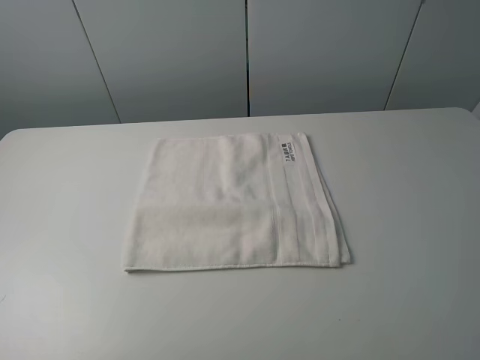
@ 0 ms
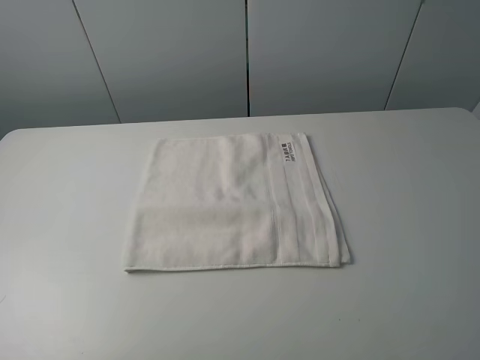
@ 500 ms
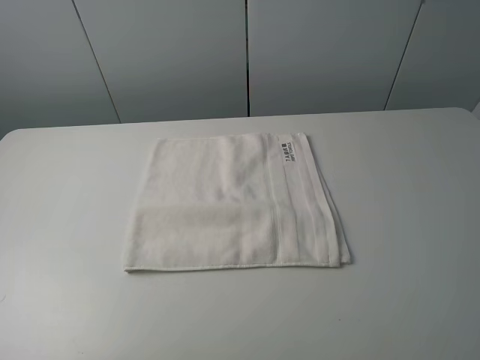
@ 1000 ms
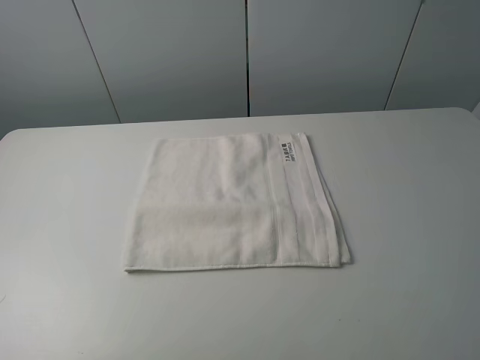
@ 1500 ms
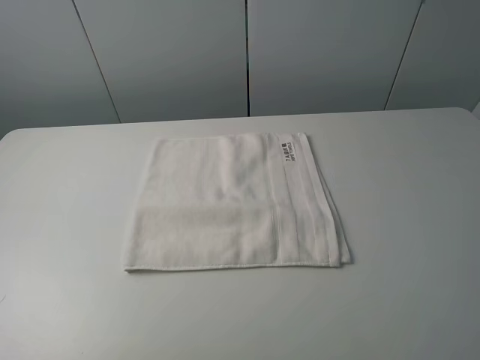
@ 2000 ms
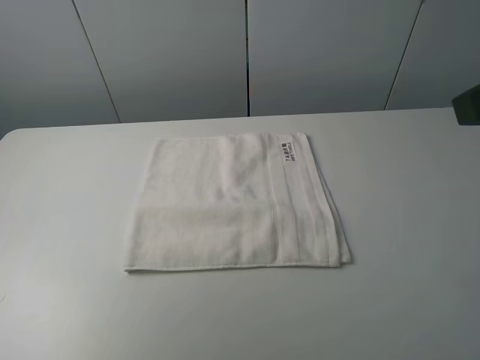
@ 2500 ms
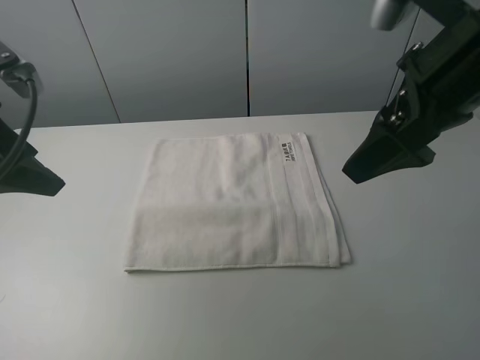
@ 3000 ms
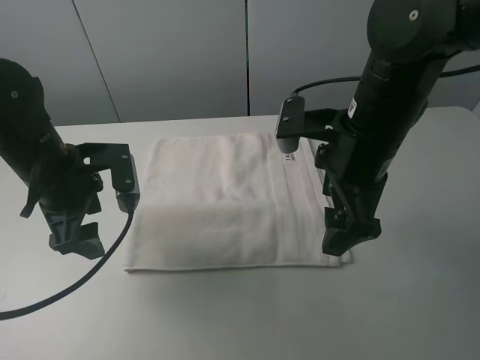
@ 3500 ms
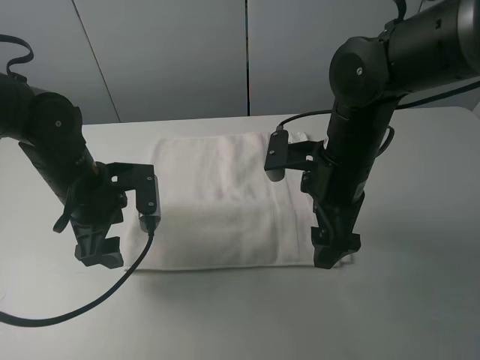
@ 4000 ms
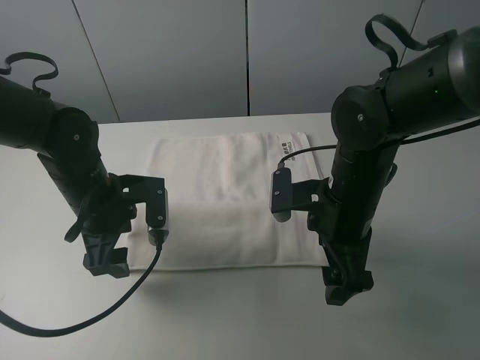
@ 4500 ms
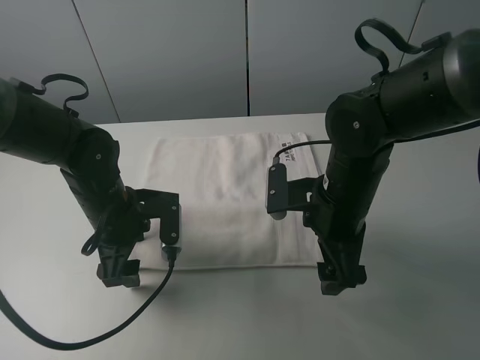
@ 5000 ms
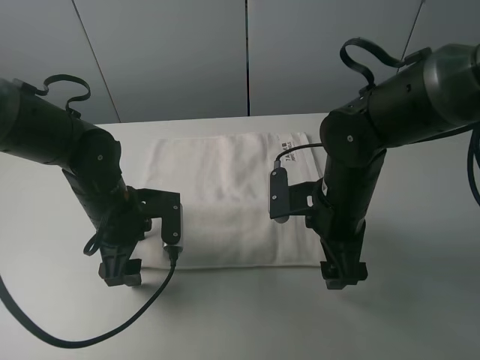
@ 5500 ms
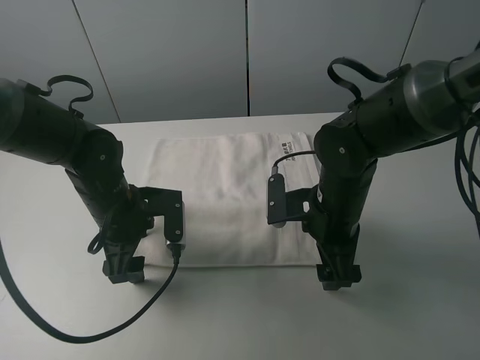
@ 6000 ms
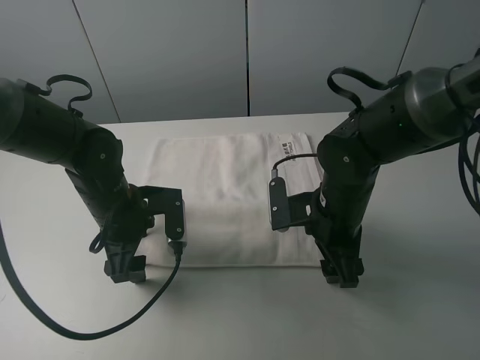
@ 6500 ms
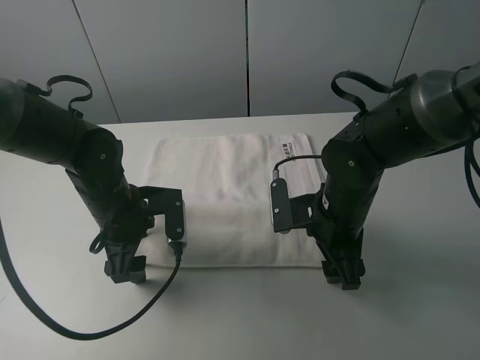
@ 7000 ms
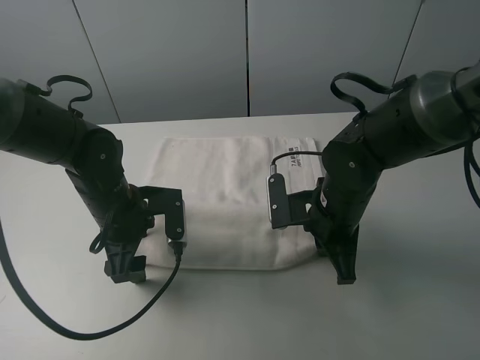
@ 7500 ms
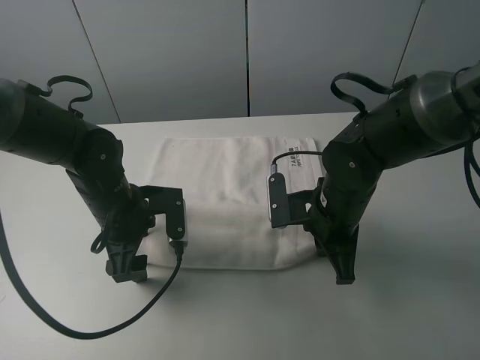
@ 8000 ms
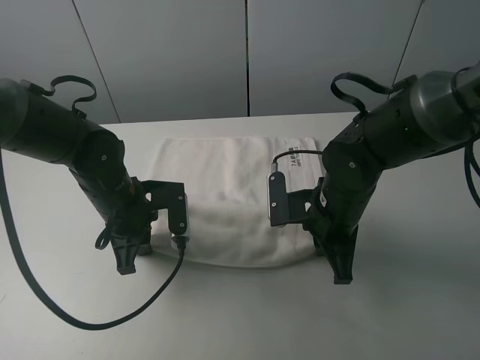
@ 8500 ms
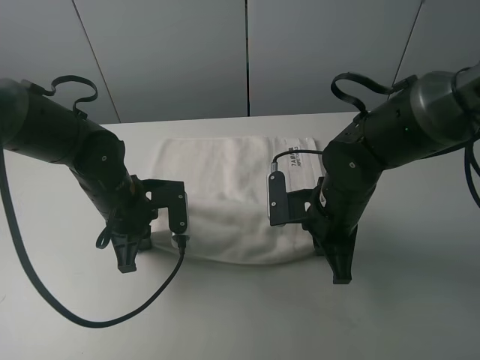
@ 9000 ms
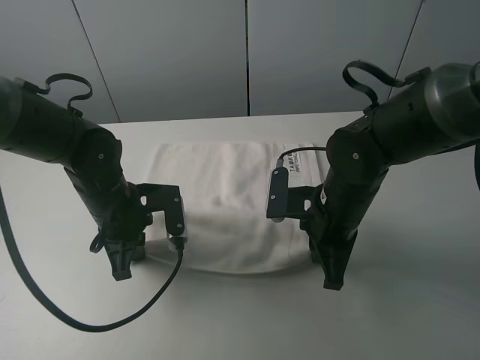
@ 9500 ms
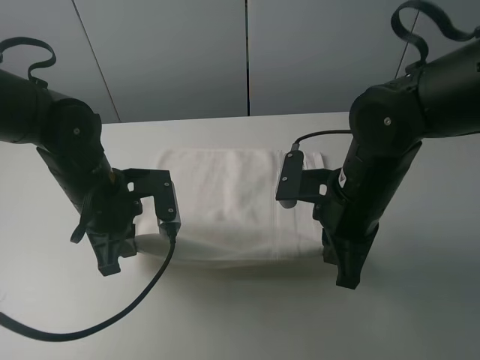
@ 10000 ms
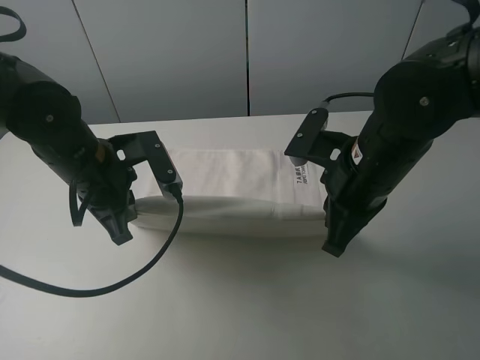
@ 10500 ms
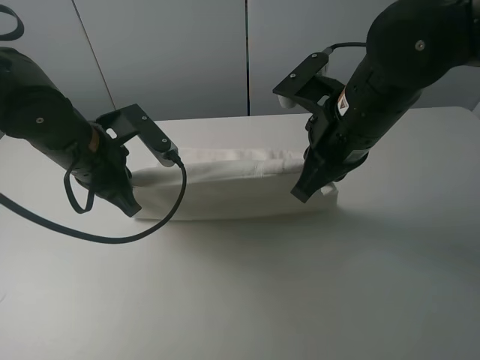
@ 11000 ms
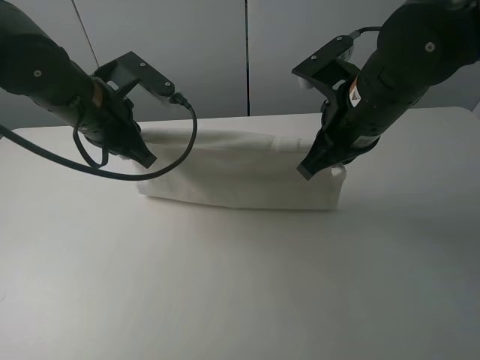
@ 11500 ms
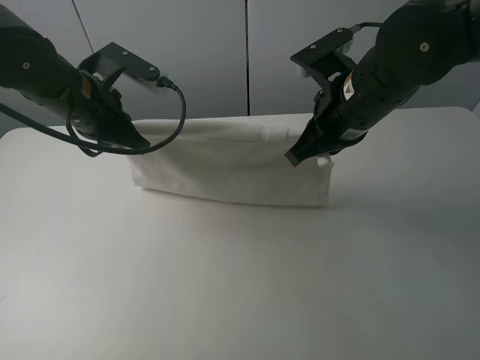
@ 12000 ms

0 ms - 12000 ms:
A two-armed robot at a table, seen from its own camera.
Task of the whole recording: fold the towels on the table.
Step, 0 ms - 7000 ms: Grasp the white towel with the right gripper.
Step, 7500 ms - 8500 ms: Grasp the white towel with the left gripper.
2000 ms - 4000 ms: The right gripper travels forward, to the left and downward by roughly 35 cm; the left gripper shifts some 35 cm forward, to the right and downward.
4000 ms - 6000 ms: The left gripper ends up roughly 5 cm from where it was. The right gripper travels downward by about 5 cm.
6000 ms - 8000 ms: The right gripper closes its fingers.
8000 ms - 10000 ms: The right gripper heads upward, covering some 5 cm. Meanwhile the left gripper ends up some 5 cm from where it was, and closes.
10000 ms - 12000 ms: The left gripper heads upward and forward, covering roughly 10 cm, while the right gripper moves forward and upward, roughly 10 cm.

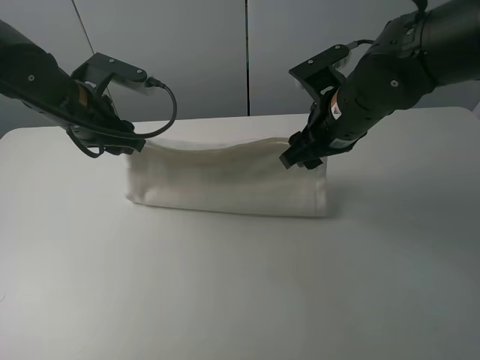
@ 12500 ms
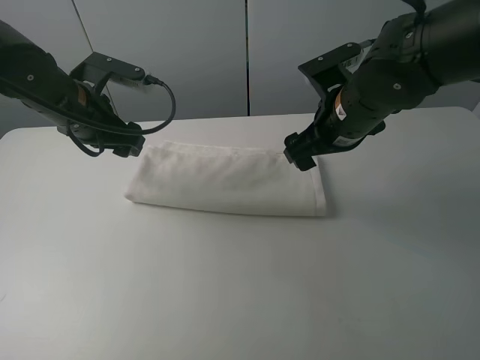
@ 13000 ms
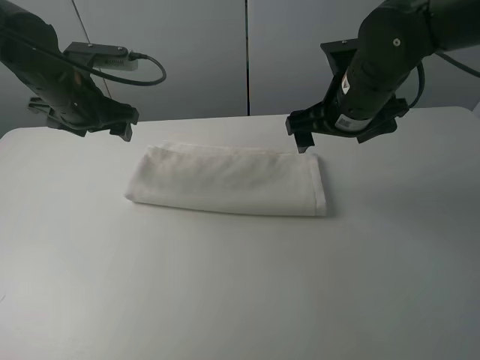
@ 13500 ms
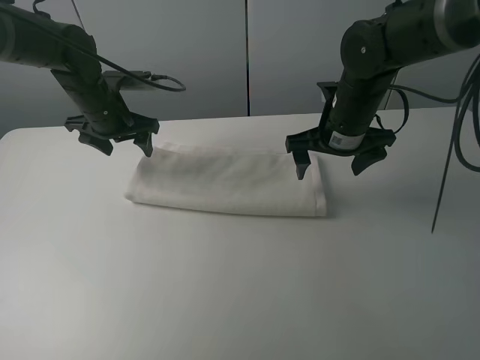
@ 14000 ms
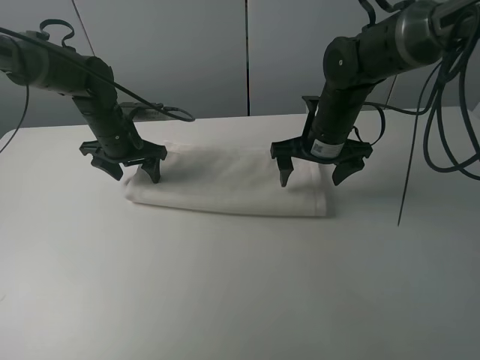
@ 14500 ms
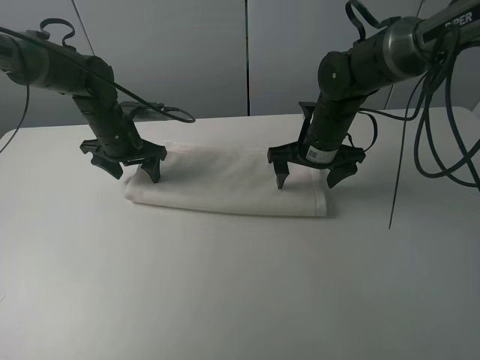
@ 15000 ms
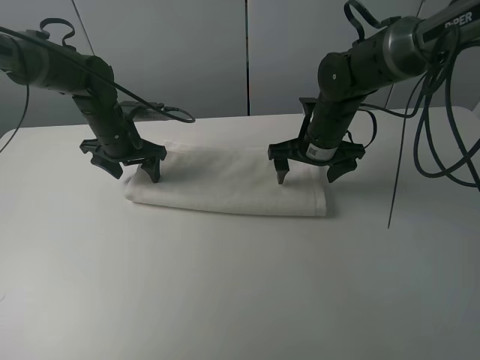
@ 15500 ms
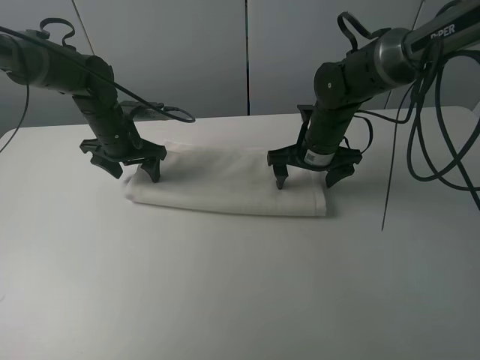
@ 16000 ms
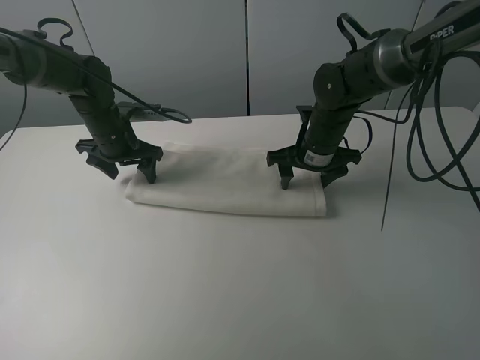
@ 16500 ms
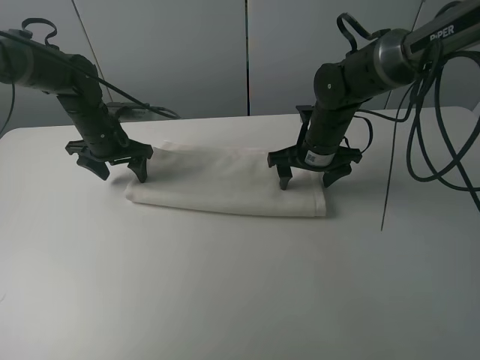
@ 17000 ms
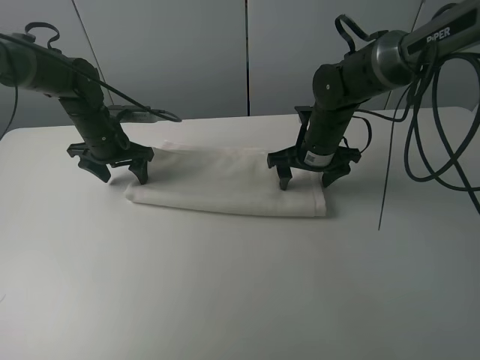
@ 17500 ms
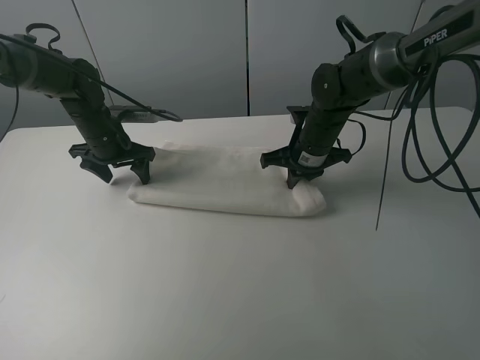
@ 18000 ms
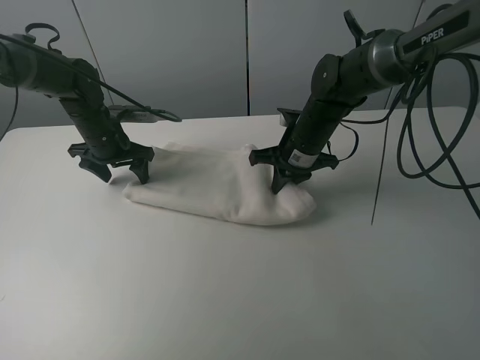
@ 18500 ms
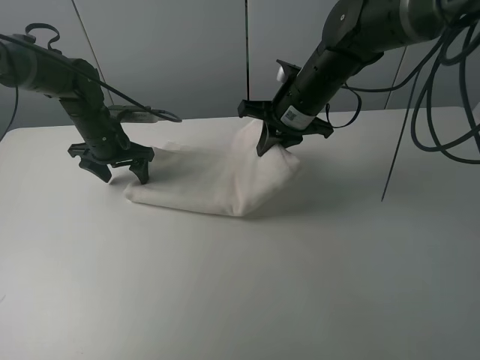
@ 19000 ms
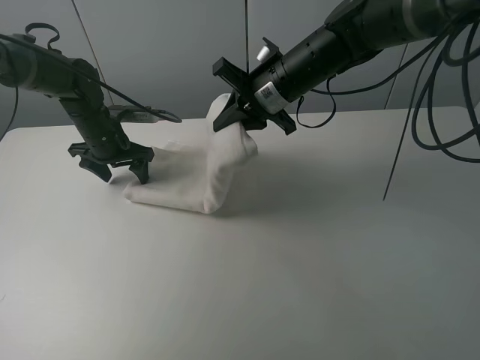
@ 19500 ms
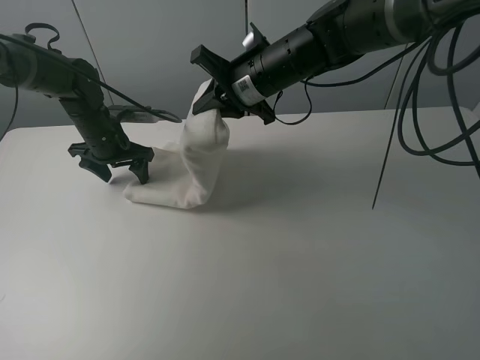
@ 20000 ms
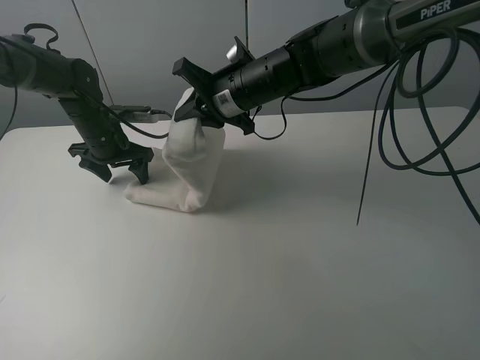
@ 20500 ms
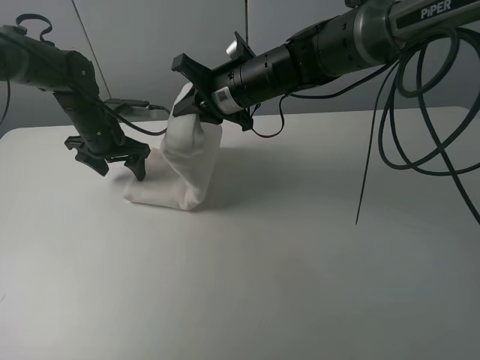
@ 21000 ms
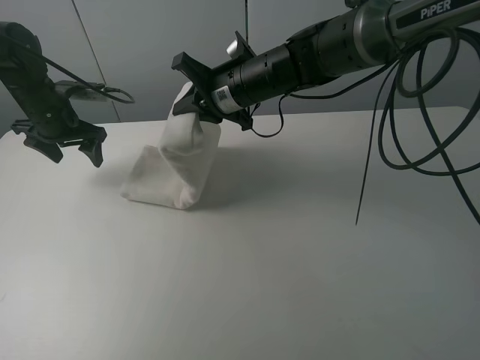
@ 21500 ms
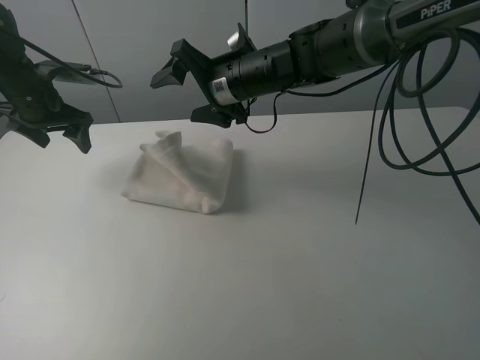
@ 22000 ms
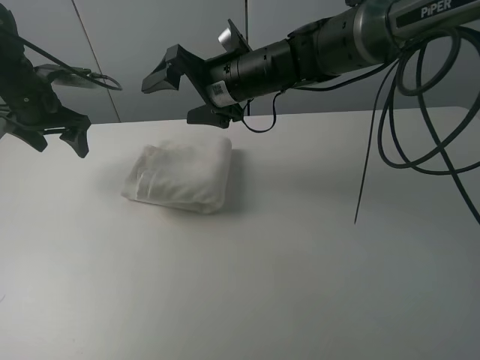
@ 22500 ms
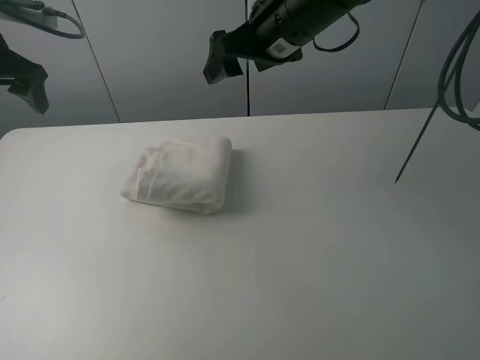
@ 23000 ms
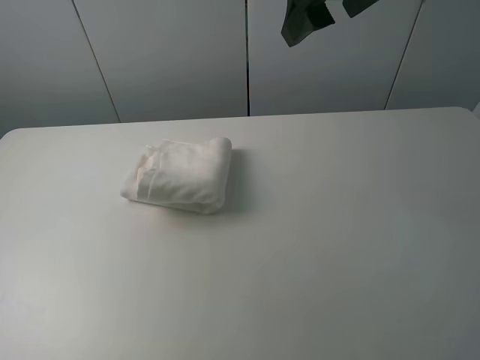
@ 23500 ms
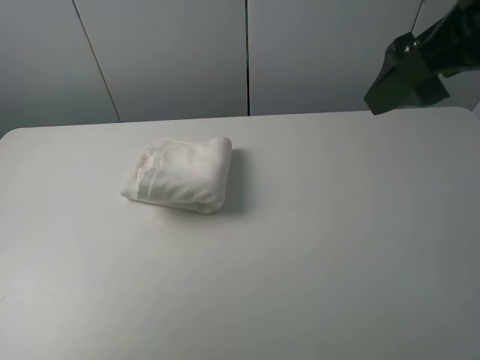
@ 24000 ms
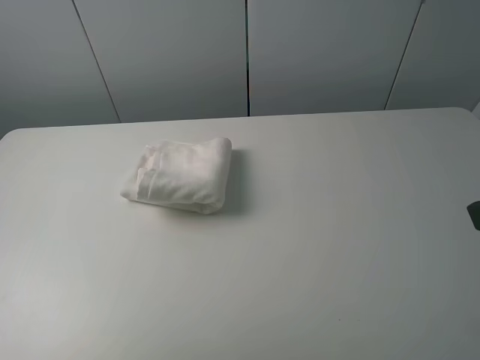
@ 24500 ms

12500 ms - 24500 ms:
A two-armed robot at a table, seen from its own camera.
Task of the whole recording: fold the towels on the table.
Step, 13500 ms - 14000 ms: Press on the white towel with the left gripper.
Step, 14500 ms - 22500 ms: Fold the white towel from right to left with right gripper.
12500 ms - 14500 ms: The left gripper goes about 10 cm downward and forward. The right gripper moves forward and downward, approximately 10 cm.
14500 ms - 16500 ms: The grippers stay close to where they were, moving slightly.
16500 ms - 18500 ms: The right gripper closes up.
18500 ms - 20500 ms: The right gripper shifts about 15 cm to the left and upward.
20500 ms - 22500 ms: The left gripper shifts about 10 cm upward and to the left. Meanwhile the right gripper opens.
22500 ms - 24500 ms: The right gripper heads backward and to the right, covering about 40 cm. The left gripper shifts about 35 cm backward.

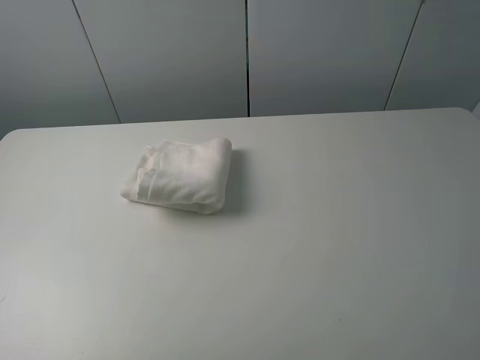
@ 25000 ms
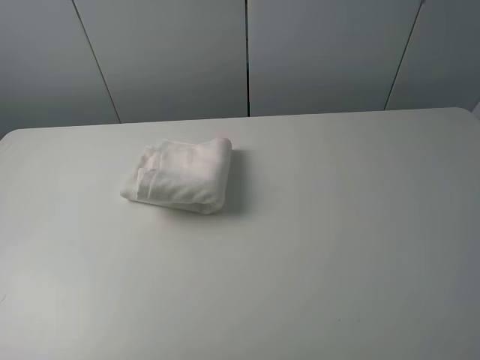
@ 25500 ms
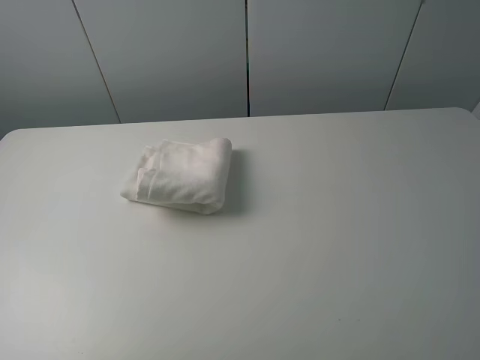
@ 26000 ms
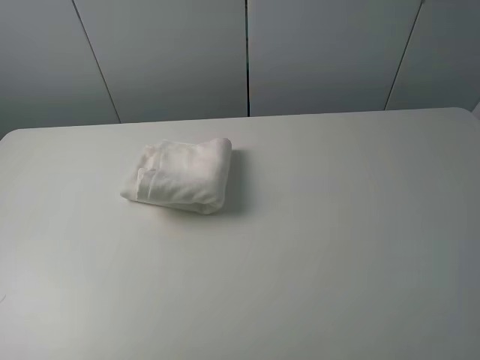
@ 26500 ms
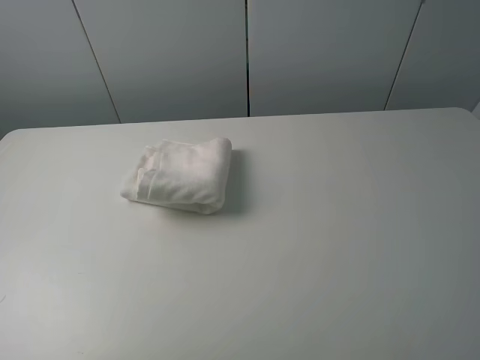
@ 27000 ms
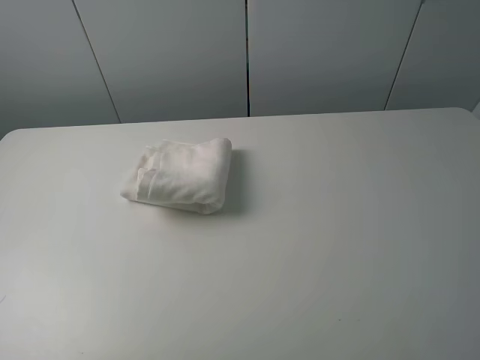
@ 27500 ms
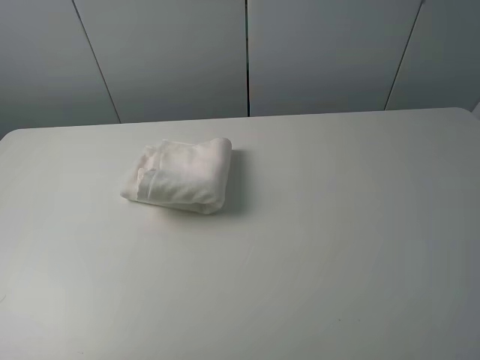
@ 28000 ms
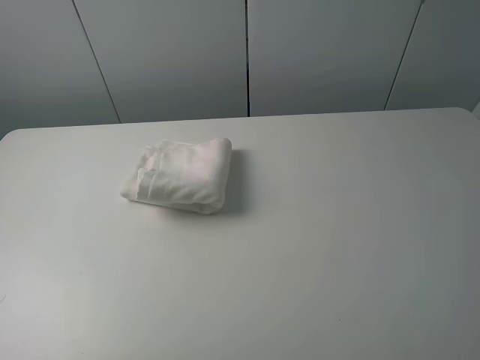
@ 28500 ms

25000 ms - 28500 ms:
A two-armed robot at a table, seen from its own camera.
Task of the whole recording: fold the towels on the table.
27000 ms - 28500 ms: Both grippers stay about where they are.
